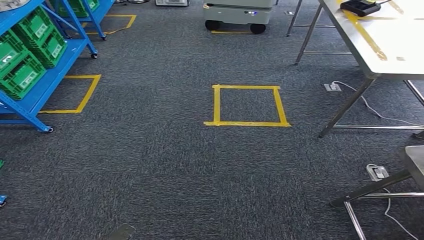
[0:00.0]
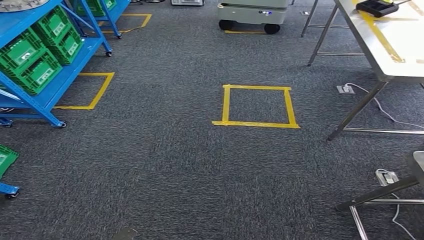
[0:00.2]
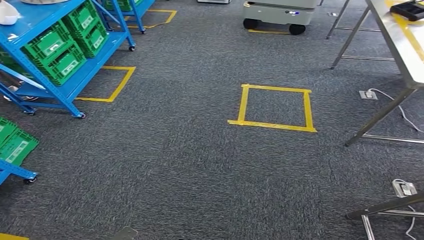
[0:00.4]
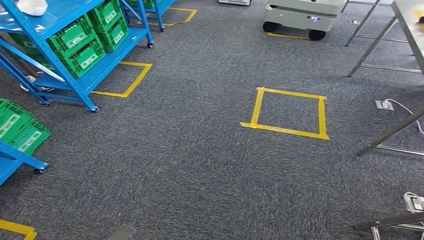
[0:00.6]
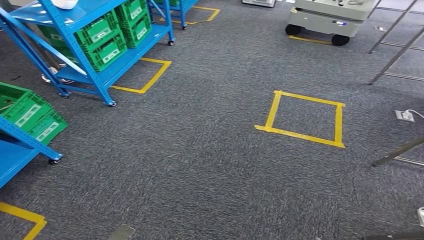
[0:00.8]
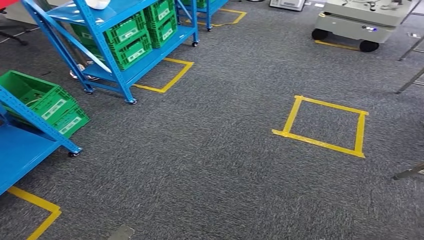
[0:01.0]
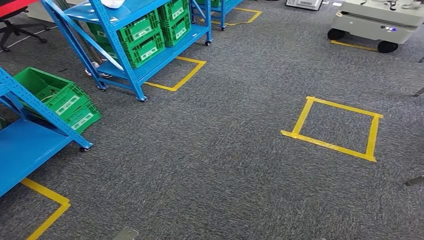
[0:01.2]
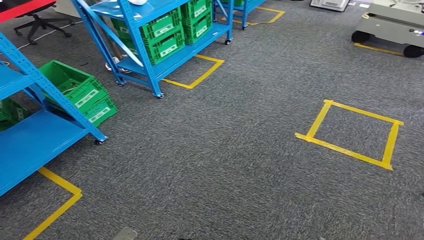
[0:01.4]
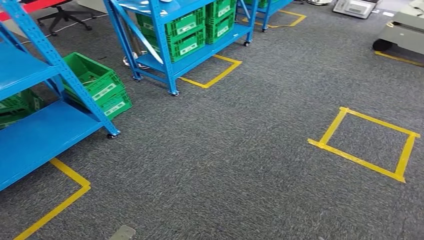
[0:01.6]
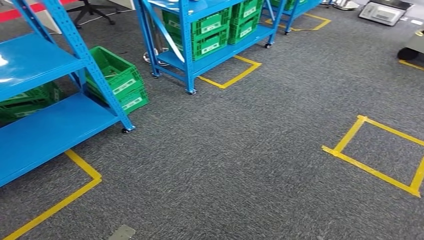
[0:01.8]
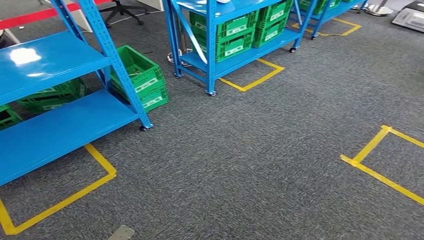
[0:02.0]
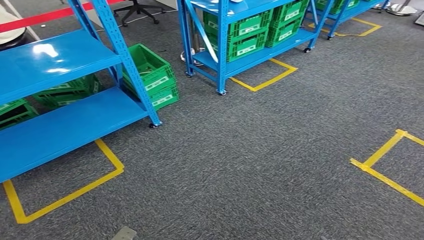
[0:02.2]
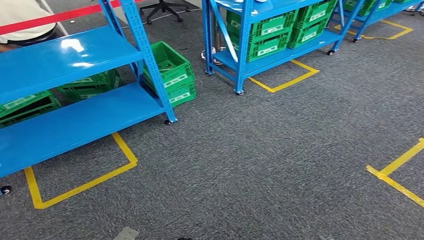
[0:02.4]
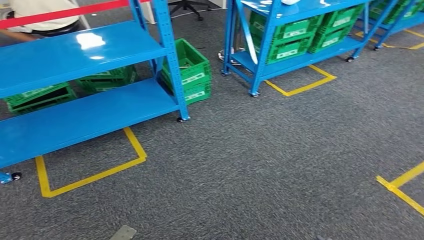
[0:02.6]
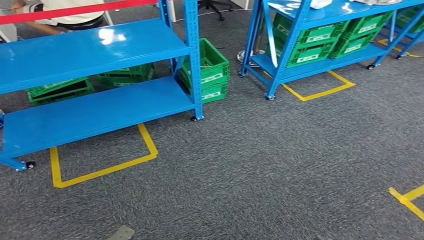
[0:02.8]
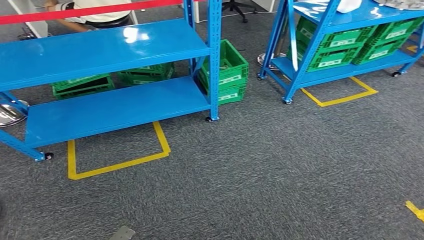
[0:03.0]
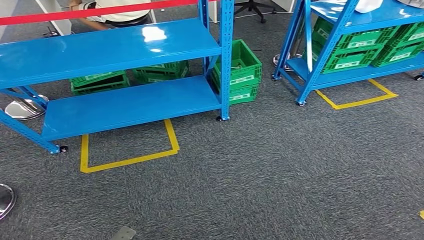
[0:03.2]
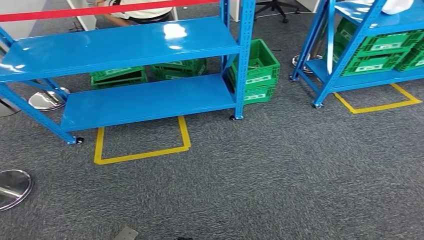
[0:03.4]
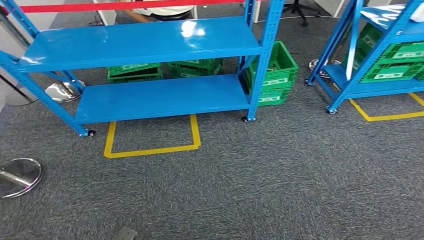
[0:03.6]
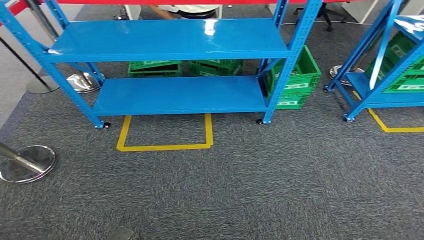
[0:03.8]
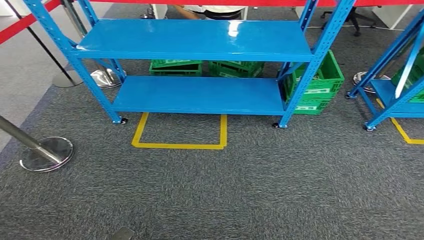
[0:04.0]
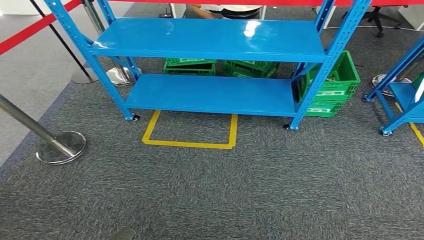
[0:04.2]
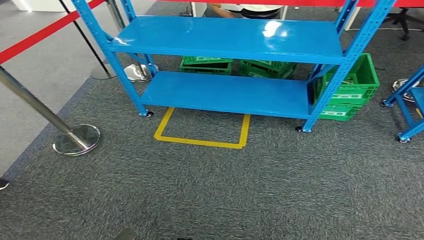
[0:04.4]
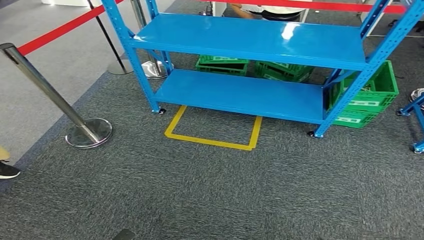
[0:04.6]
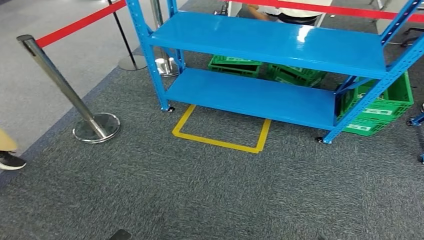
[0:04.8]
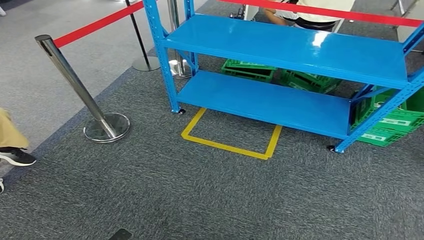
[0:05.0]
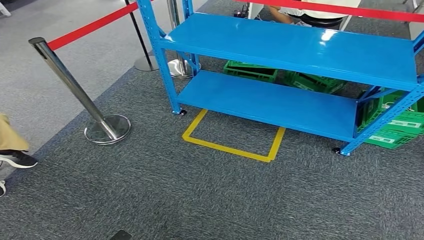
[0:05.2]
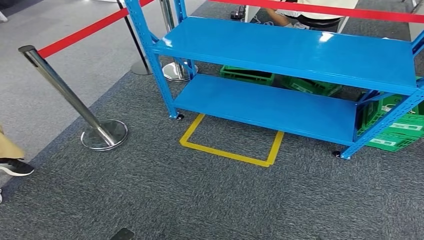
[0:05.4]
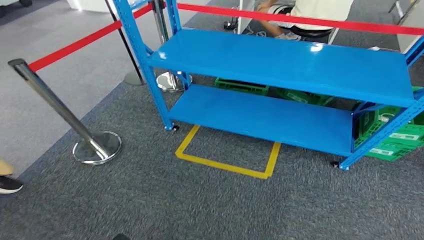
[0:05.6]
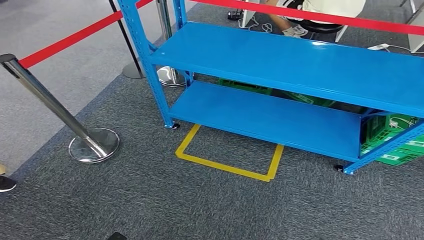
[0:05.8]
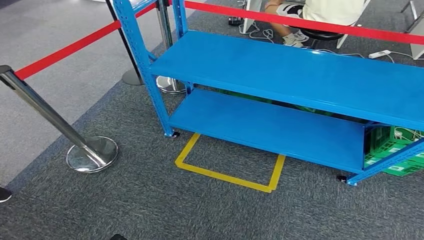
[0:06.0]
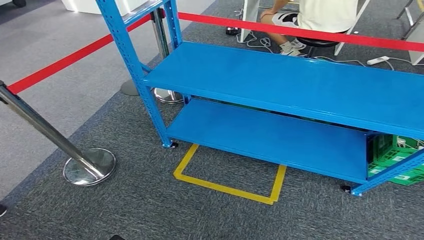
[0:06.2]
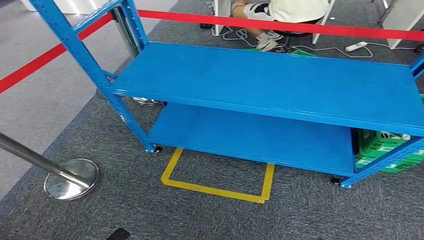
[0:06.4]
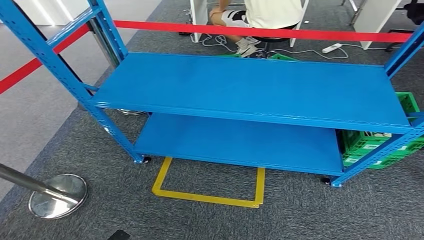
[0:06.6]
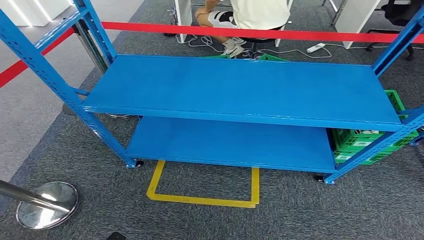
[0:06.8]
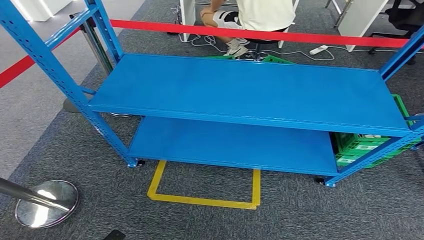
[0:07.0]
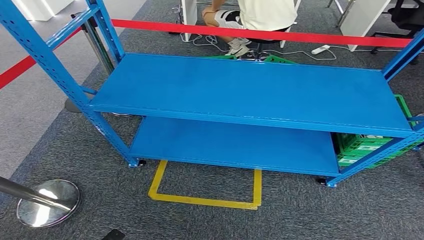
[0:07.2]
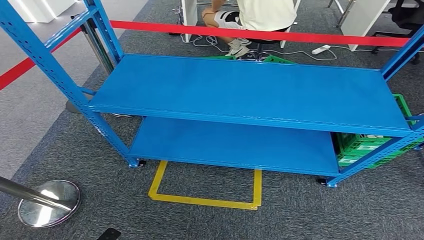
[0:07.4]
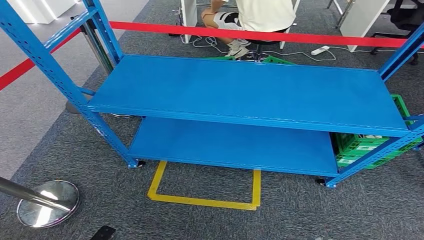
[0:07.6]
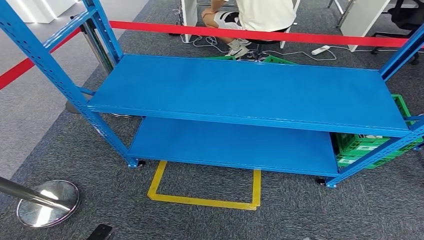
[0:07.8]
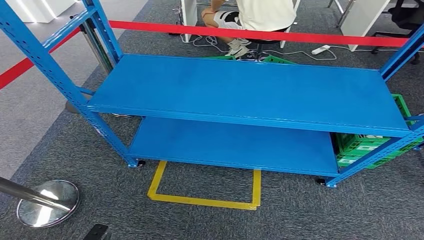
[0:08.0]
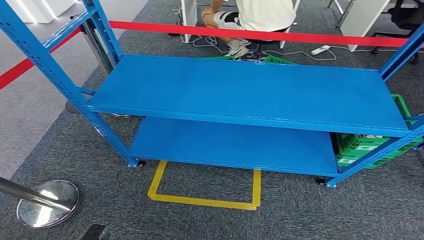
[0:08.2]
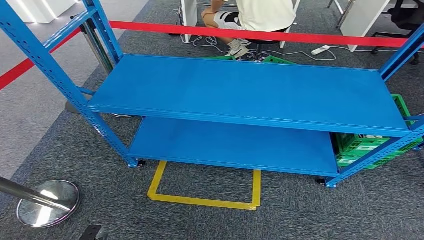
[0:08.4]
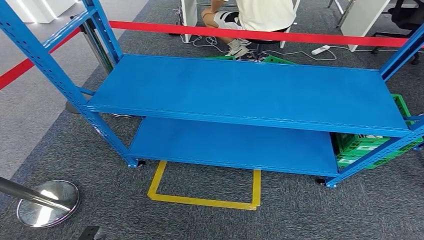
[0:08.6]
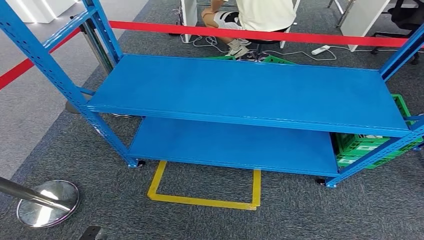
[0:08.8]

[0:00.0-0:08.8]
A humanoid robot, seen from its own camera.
Step, 0:00.0 to 0:08.8: Move to the initial position at the workbench.
0:07.4 to 0:08.8: The right hand heads downward, covering about 5 cm.

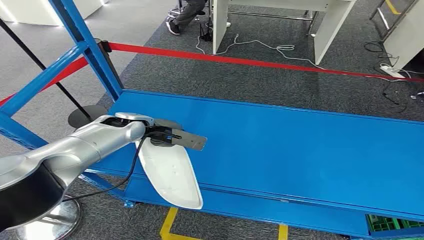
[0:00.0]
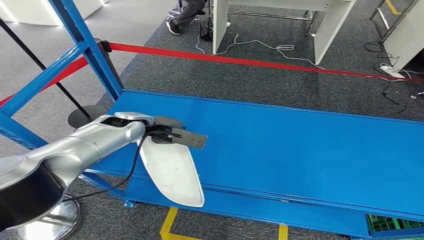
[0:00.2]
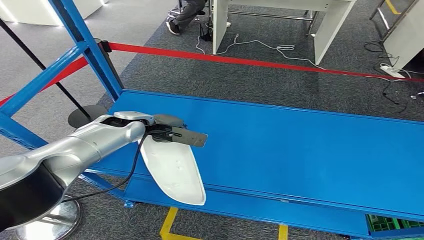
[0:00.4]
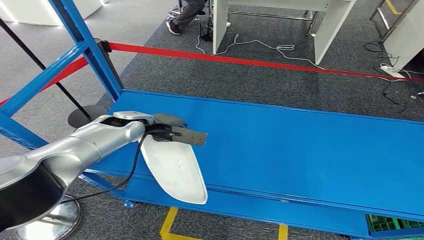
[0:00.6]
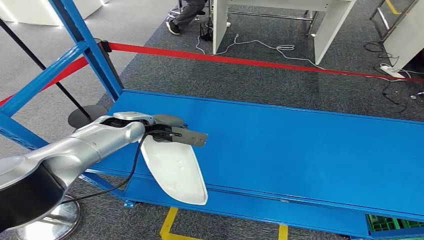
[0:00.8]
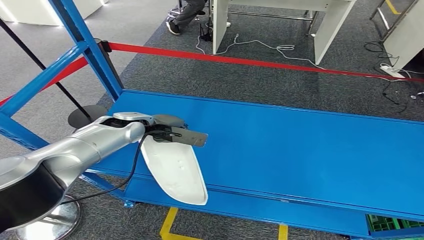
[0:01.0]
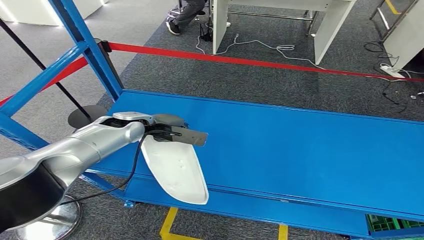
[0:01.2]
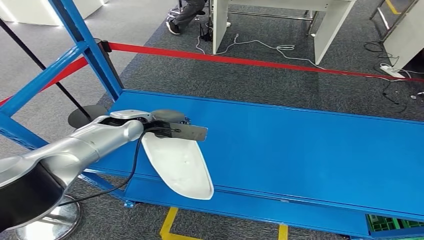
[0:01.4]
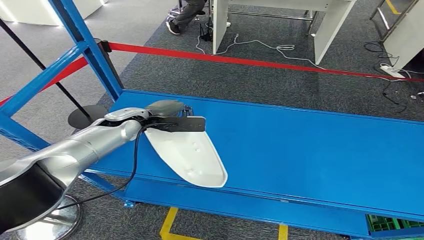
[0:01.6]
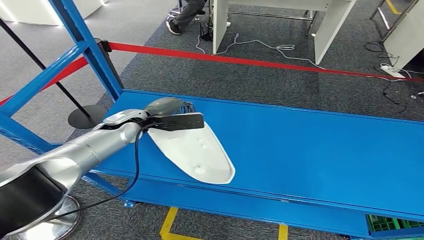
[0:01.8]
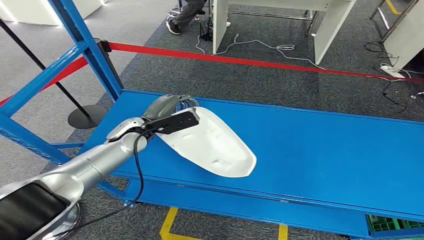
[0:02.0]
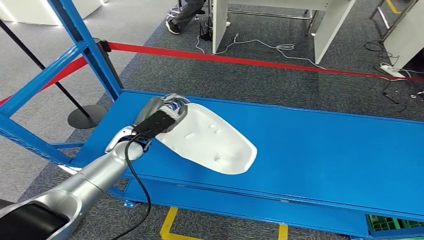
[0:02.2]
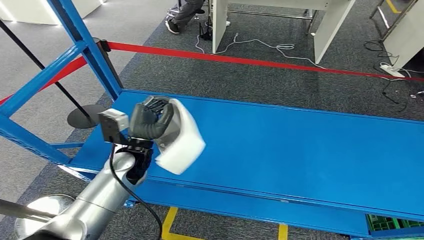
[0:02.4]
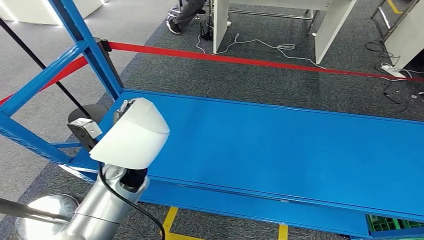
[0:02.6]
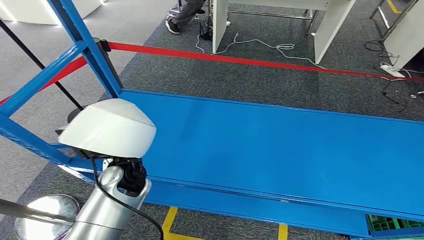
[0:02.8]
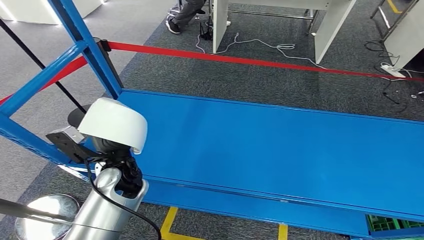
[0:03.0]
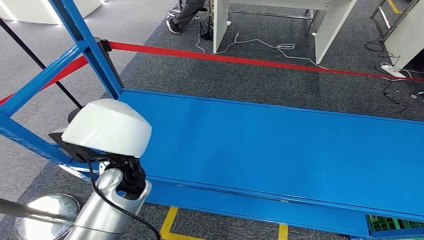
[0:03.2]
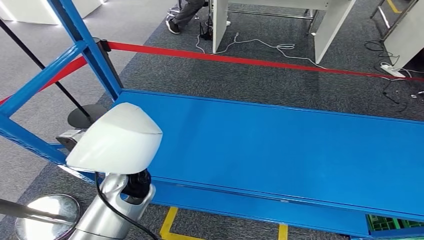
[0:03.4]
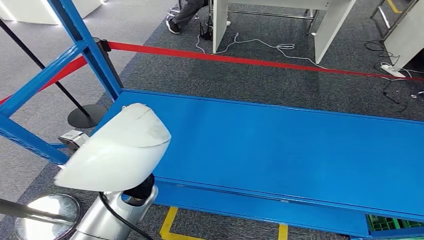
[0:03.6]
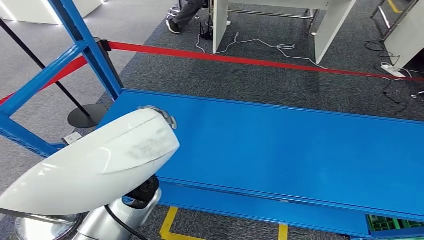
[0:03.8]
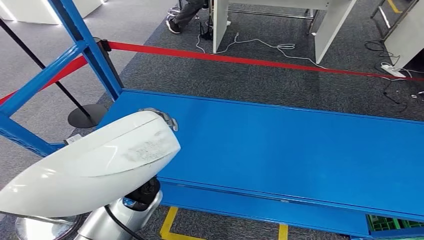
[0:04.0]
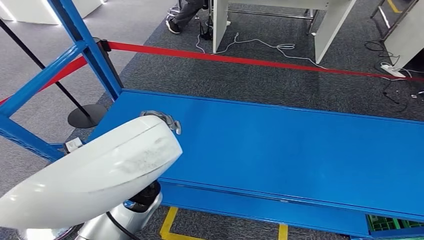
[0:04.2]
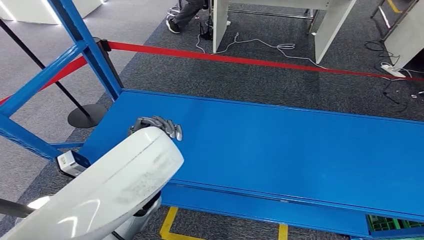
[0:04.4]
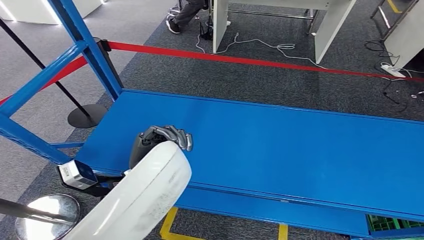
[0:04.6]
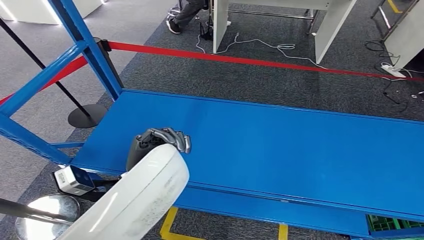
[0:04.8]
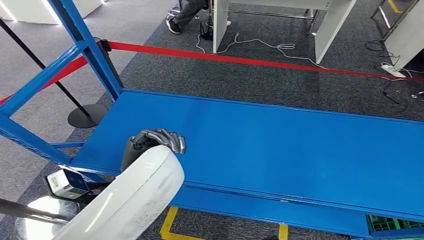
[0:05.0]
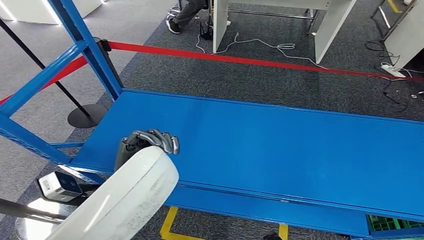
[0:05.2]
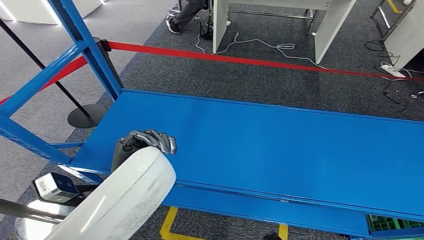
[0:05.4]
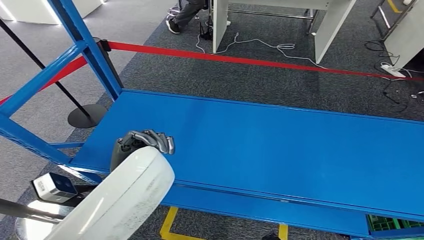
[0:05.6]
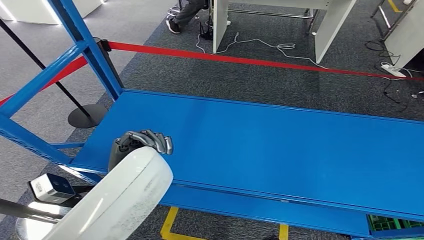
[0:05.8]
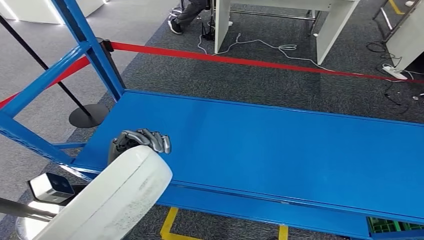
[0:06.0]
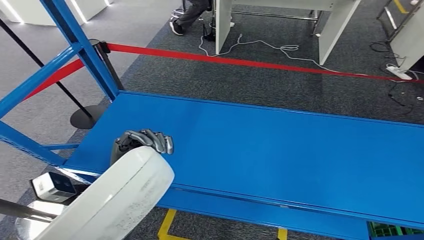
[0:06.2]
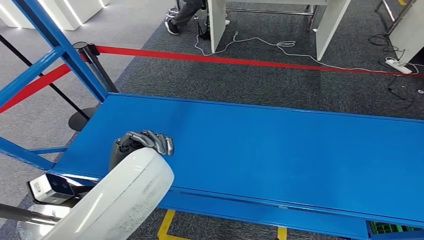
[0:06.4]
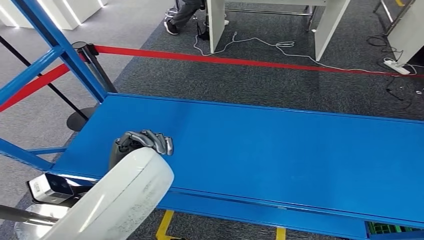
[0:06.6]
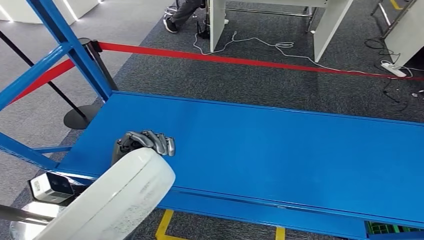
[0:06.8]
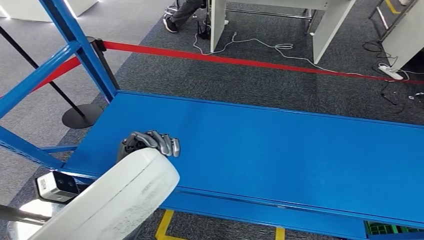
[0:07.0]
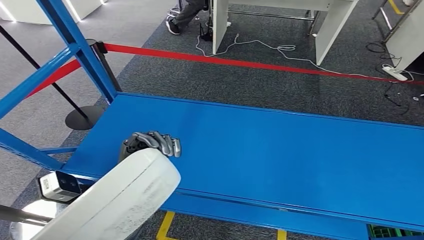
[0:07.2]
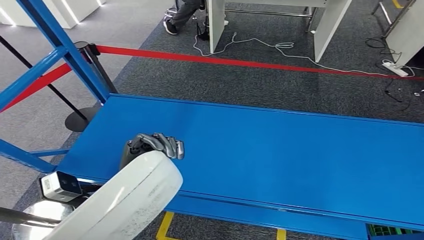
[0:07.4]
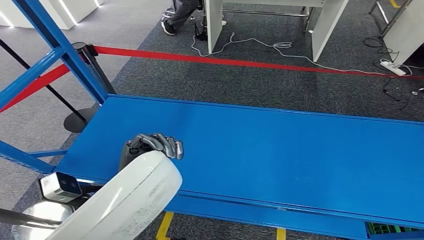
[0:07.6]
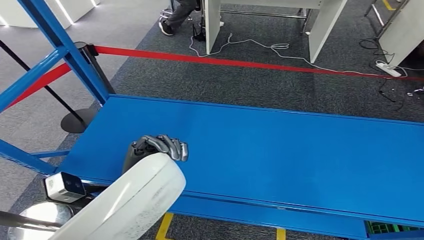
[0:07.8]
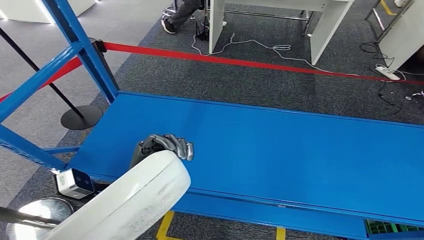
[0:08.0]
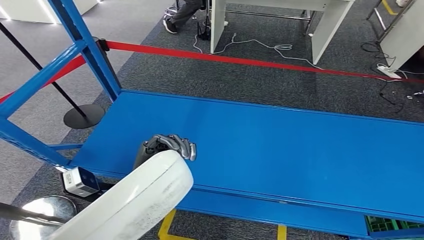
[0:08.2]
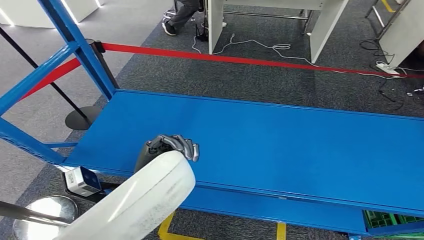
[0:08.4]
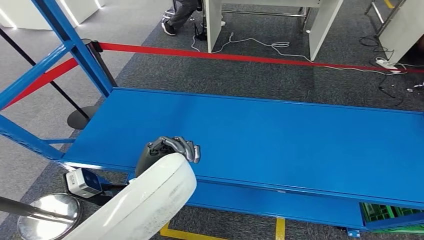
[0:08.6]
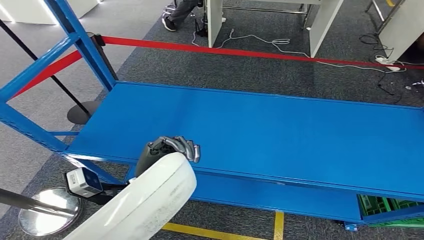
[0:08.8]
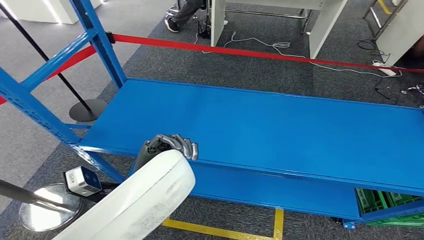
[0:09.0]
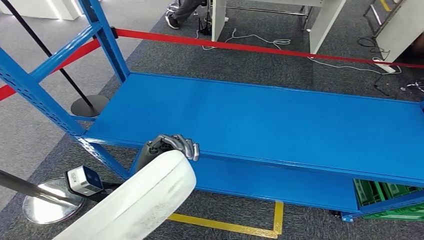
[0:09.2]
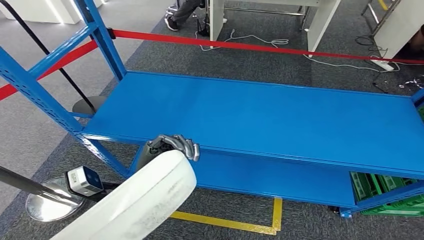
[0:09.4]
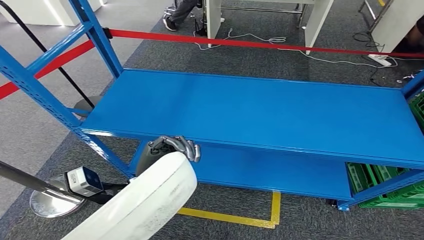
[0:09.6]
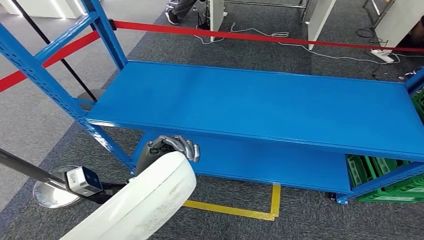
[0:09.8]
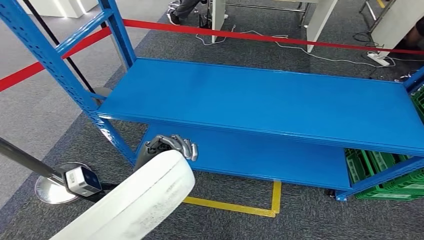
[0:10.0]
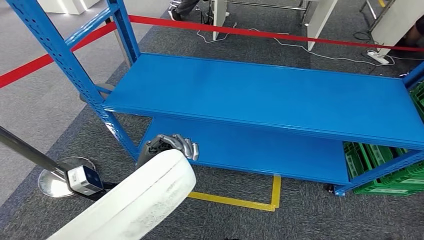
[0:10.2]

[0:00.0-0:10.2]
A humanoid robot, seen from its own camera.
Step, 0:00.0 to 0:05.2: Pick up the small component from the shelf.
0:01.4 to 0:03.0: The left hand travels backward by about 15 cm.
0:03.0 to 0:04.4: The left hand heads backward, covering roughly 5 cm.
